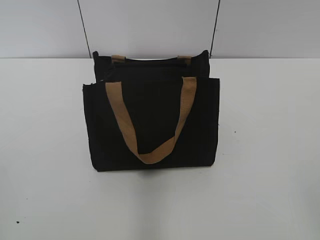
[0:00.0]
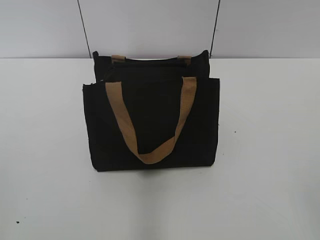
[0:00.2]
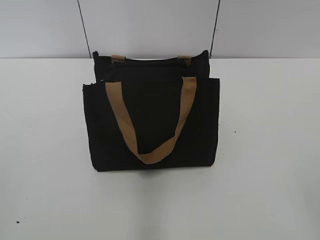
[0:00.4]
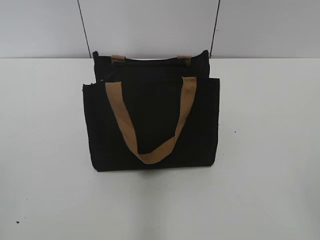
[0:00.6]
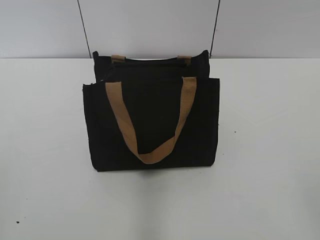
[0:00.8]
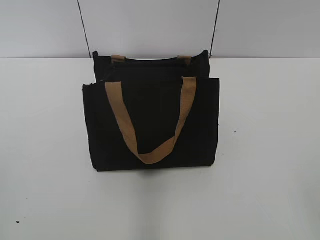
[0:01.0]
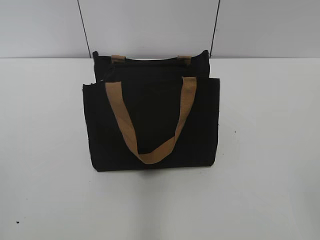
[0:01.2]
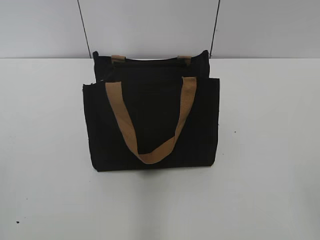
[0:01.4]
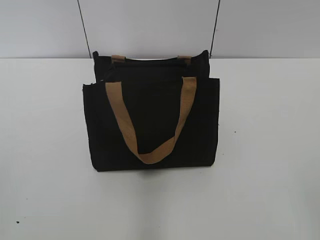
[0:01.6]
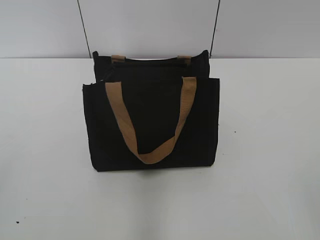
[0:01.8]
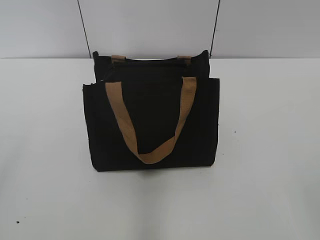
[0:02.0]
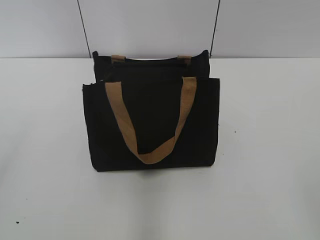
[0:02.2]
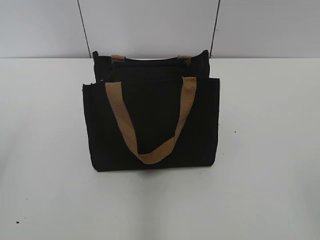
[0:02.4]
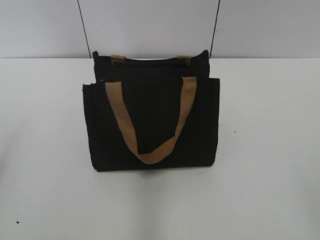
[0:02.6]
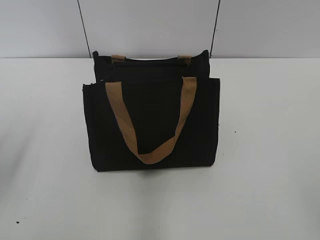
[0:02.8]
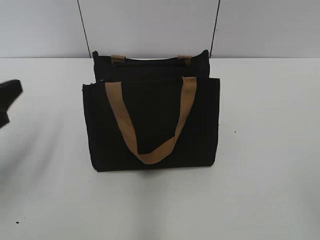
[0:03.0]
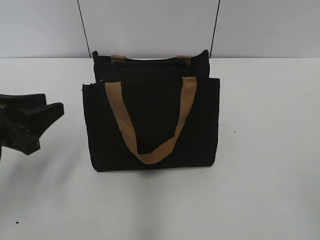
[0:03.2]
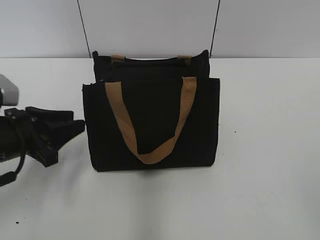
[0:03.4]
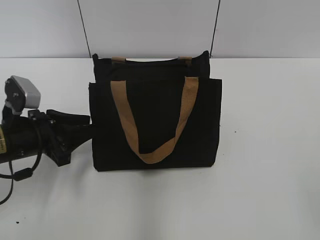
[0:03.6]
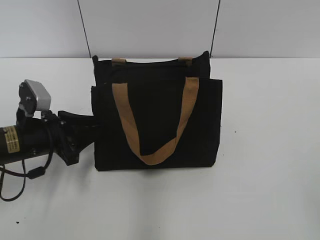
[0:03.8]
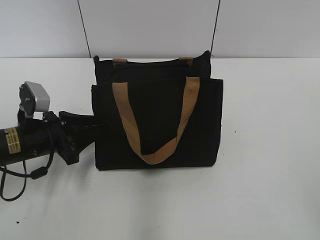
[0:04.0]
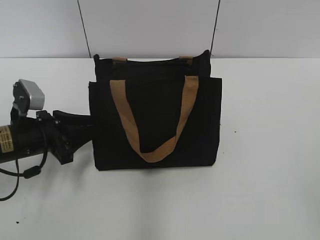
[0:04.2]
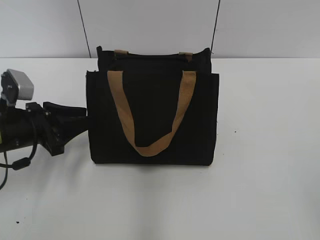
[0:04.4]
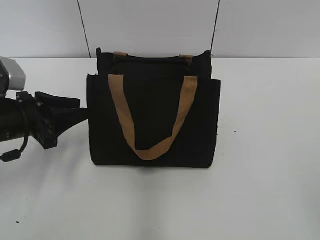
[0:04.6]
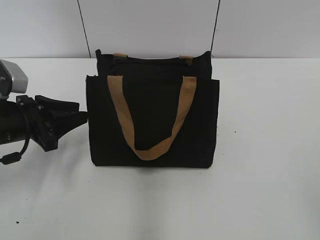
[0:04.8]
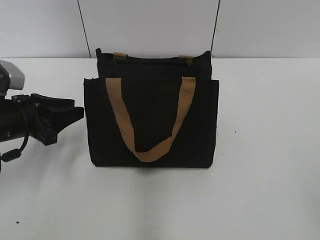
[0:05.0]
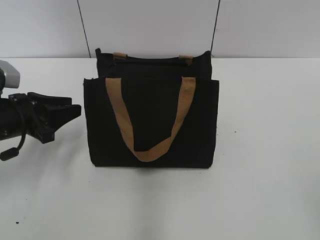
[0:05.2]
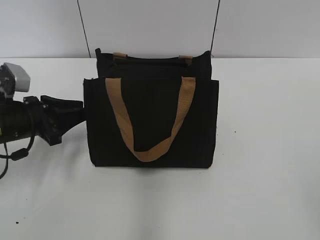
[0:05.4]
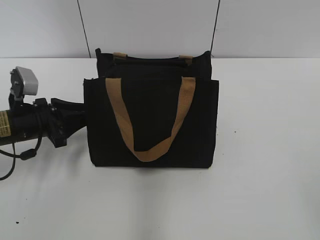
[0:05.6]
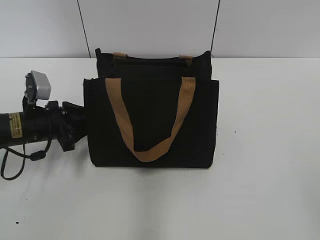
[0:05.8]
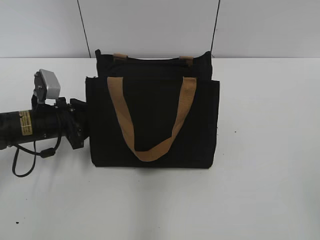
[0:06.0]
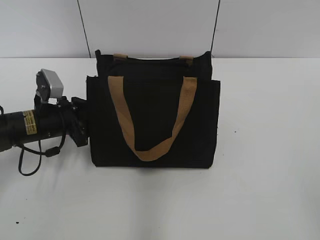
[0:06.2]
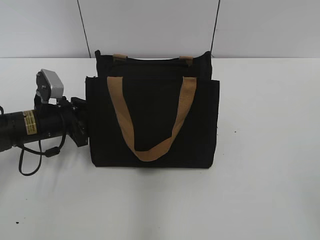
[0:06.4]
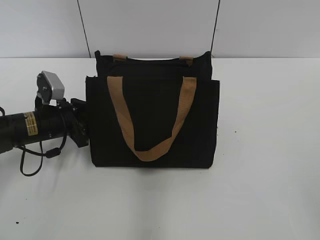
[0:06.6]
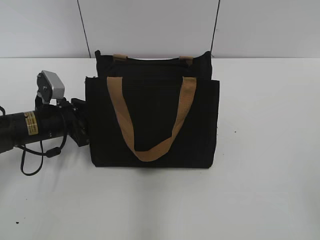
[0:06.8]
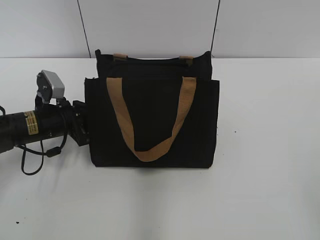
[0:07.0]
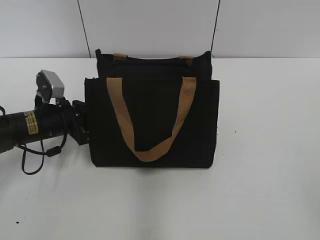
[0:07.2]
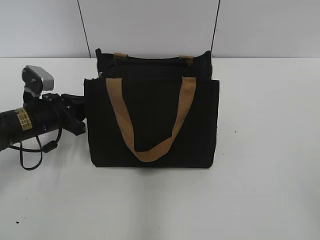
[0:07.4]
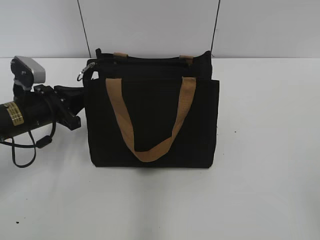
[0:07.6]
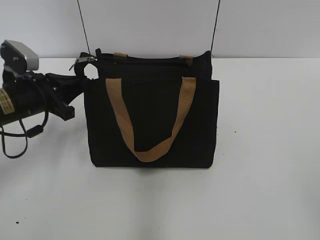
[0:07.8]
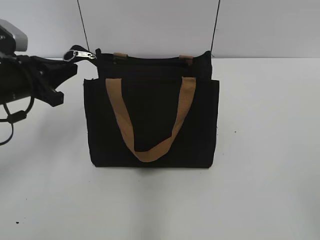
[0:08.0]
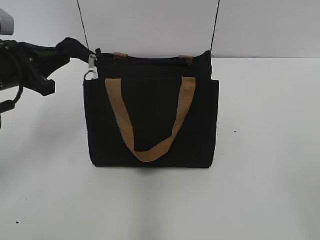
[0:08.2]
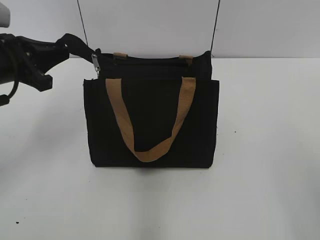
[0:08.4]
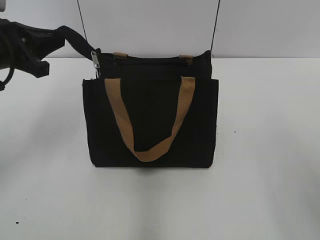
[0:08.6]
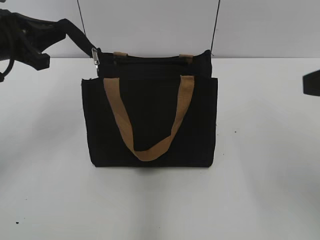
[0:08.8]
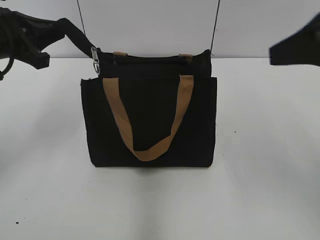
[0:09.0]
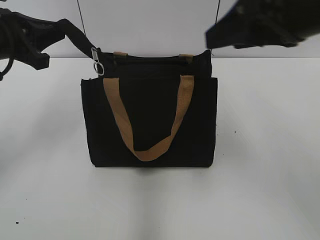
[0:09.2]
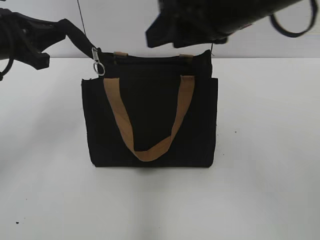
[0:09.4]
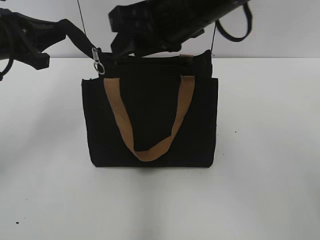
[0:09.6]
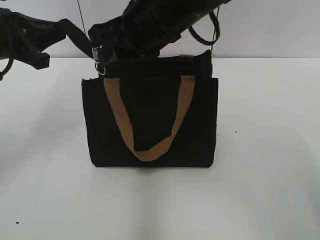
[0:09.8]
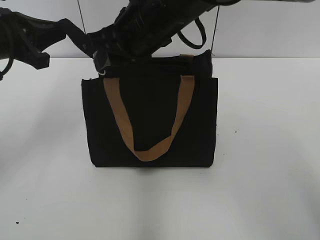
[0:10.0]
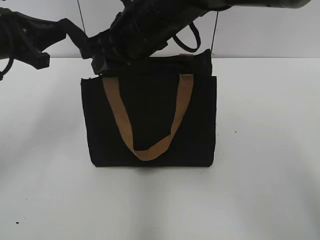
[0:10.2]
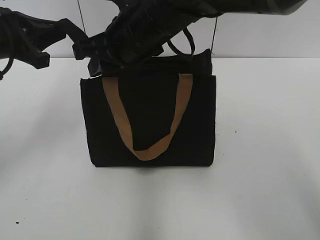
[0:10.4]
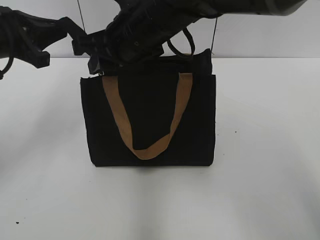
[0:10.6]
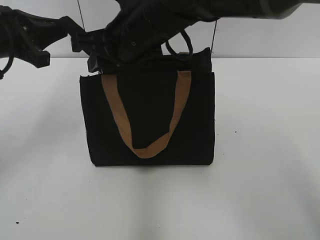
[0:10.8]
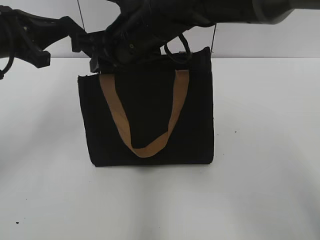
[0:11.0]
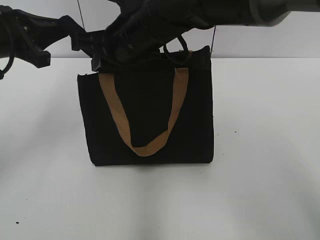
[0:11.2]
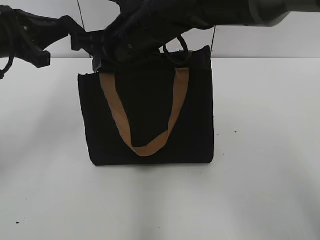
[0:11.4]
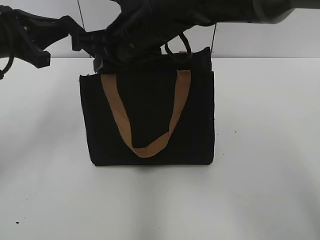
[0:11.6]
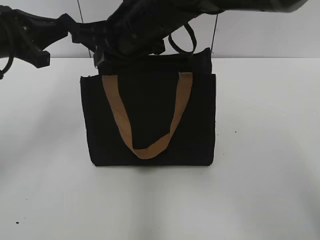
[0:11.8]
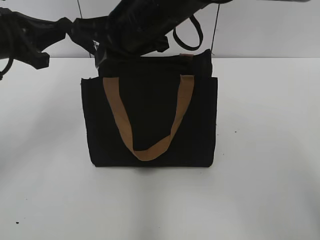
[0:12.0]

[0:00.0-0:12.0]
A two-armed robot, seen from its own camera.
1.6 to 3.0 s: The left gripper travels forward by roughly 20 cm.
3.0 to 4.4 s: The left gripper shifts roughly 10 cm downward and forward.
4.4 to 6.0 s: The left gripper shifts by about 5 cm.
6.0 to 7.6 s: The left gripper closes up.
7.6 to 9.0 s: The left gripper is displaced upward by some 15 cm. Meanwhile the right gripper is displaced forward by approximately 20 cm.
9.0 to 10.4 s: The right gripper shifts about 25 cm to the left and forward, and closes up.
10.4 to 12.0 s: The right gripper closes up.

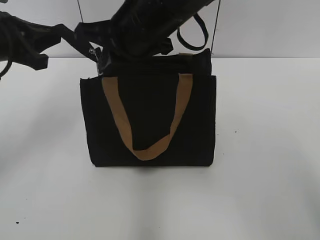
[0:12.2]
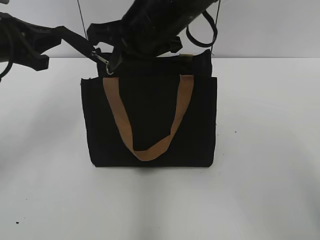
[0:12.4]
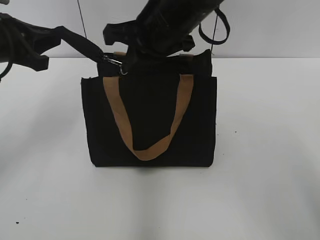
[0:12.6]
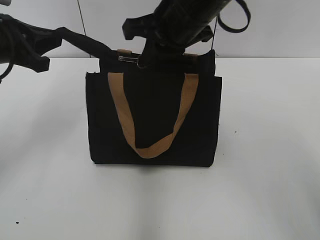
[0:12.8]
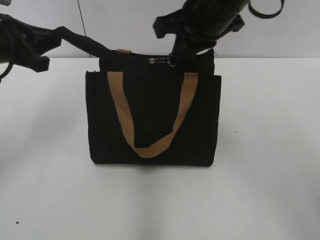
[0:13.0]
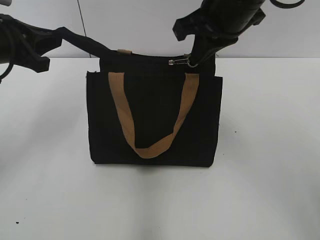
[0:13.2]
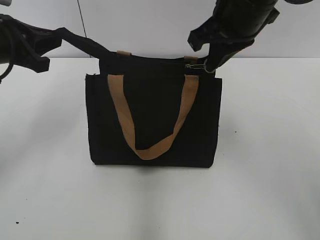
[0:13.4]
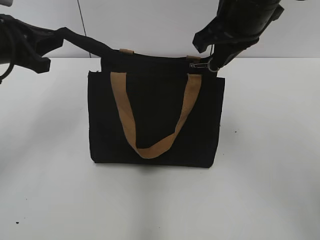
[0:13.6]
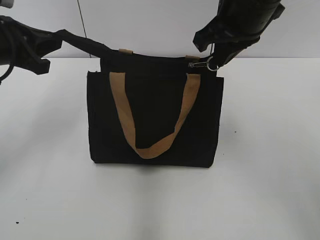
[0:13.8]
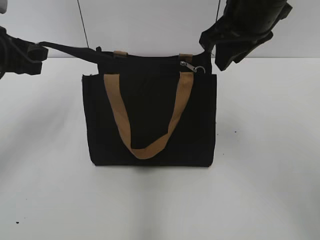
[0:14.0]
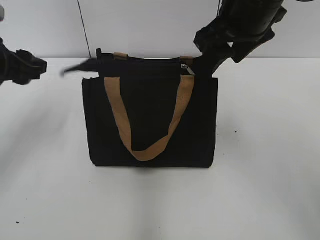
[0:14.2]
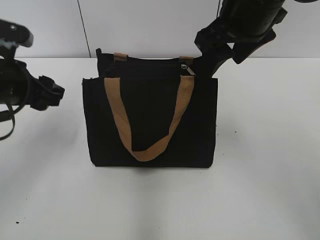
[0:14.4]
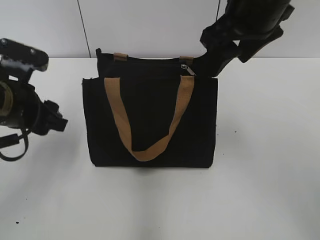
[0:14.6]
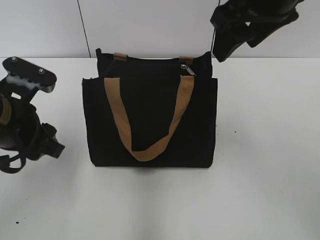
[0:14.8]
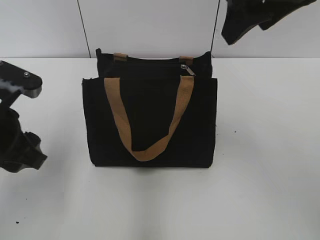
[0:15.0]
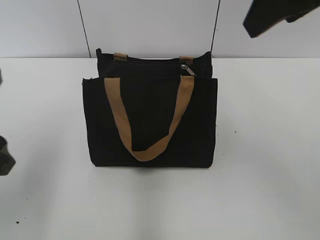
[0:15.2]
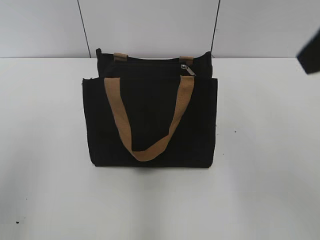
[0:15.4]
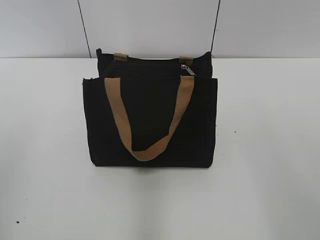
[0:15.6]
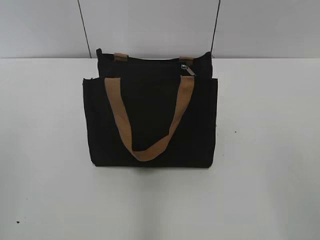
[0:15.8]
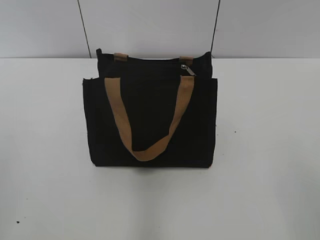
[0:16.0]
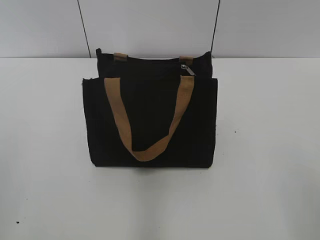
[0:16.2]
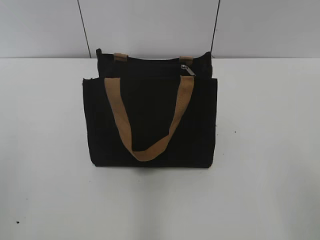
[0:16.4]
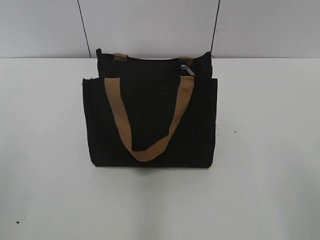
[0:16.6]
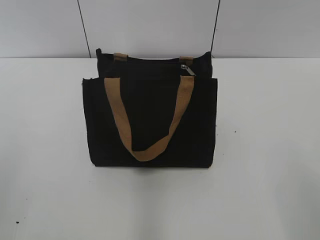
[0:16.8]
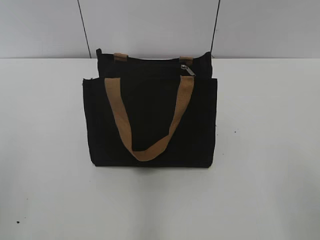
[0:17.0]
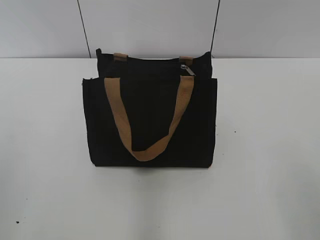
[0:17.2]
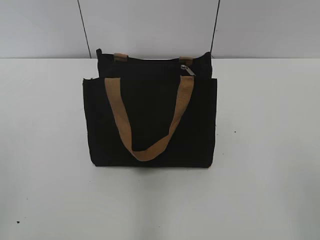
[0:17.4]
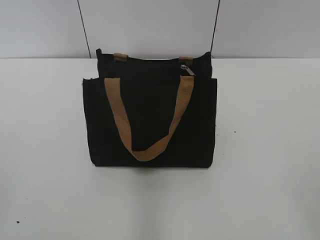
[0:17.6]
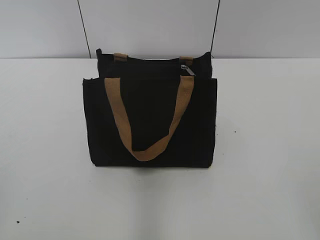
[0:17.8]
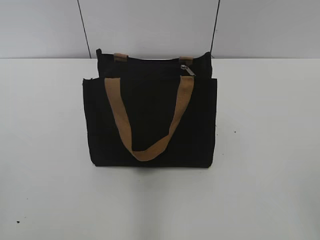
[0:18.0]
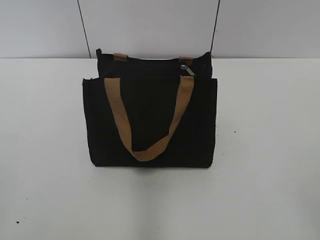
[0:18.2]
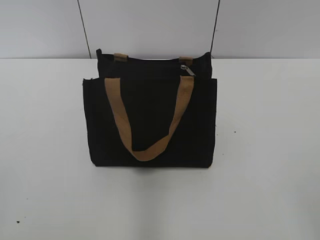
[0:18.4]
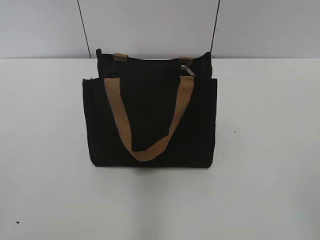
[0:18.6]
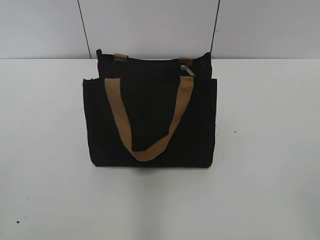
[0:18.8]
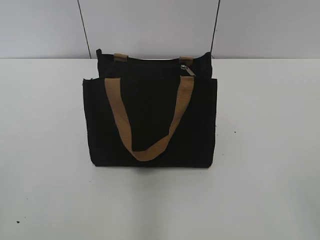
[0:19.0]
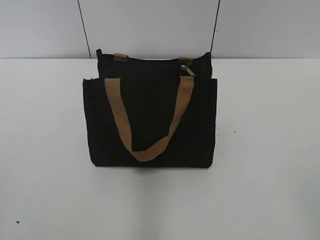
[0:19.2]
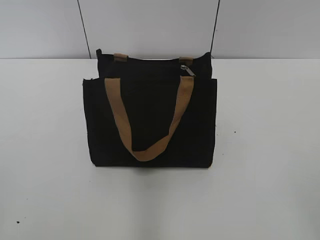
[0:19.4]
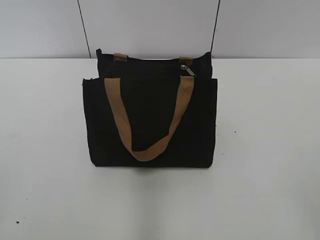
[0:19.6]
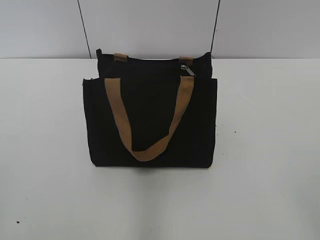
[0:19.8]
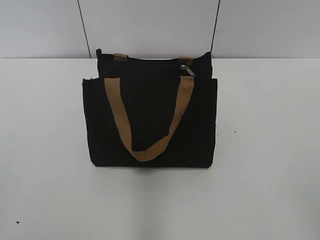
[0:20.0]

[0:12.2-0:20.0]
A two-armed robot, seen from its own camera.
Step, 14.0 to 14.2 s: Grab the zipper with your left hand.
12.2 to 13.8 s: The right gripper travels to the right by roughly 10 cm.
13.8 to 15.4 s: The left gripper travels backward by roughly 15 cm, and opens up. Meanwhile the right gripper travels backward, upward and to the right by roughly 20 cm, and opens up.
15.4 to 16.8 s: The right gripper heads backward, downward and to the right, covering some 20 cm.
18.4 to 20.0 s: The two grippers keep their place.

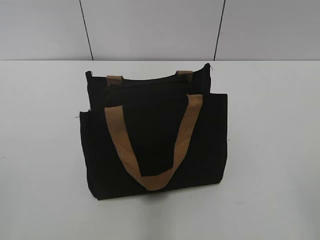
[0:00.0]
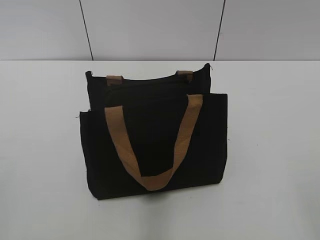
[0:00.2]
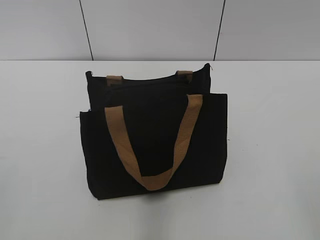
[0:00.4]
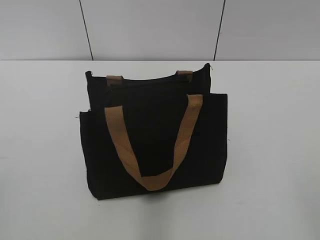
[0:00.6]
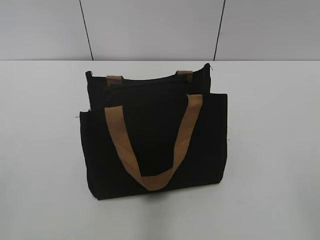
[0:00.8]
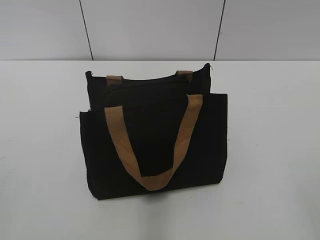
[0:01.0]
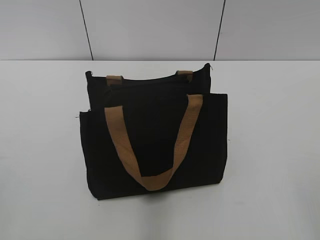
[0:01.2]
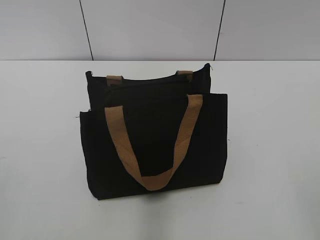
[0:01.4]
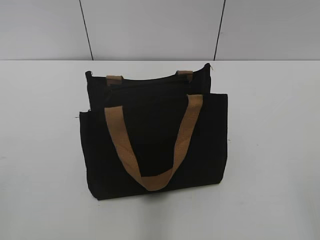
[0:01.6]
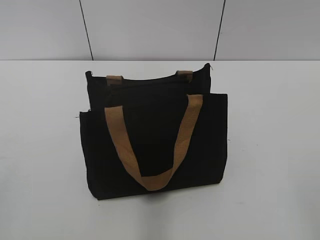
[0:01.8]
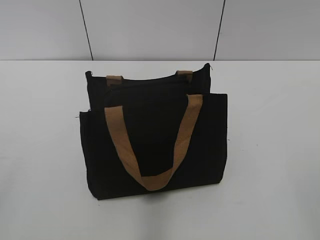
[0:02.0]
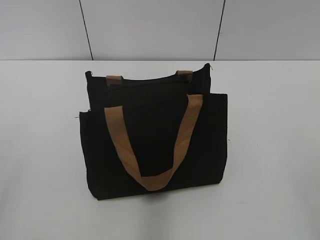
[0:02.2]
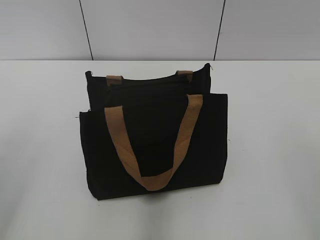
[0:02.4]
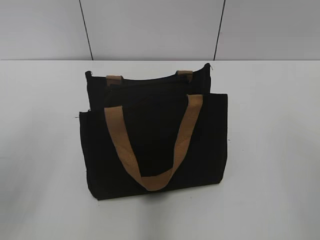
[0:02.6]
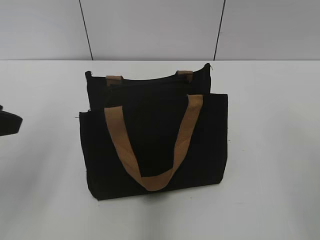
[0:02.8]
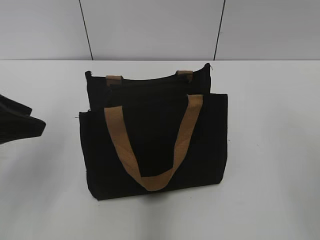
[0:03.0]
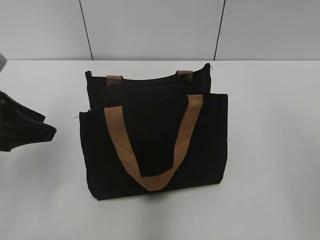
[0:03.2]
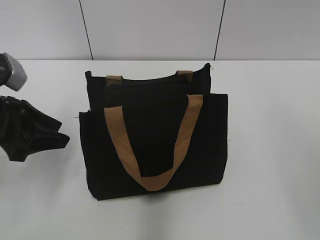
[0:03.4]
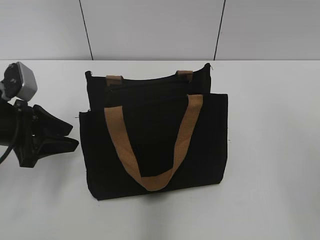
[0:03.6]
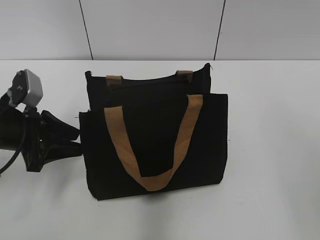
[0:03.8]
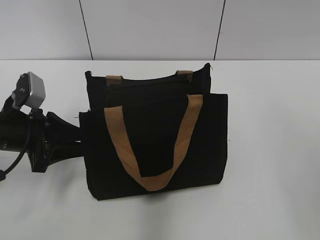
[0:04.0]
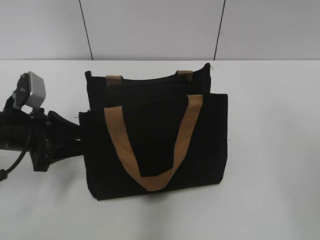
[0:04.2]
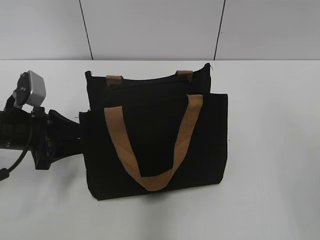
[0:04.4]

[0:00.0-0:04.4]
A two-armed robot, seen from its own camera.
1.4 to 3.0 s: The left gripper moves forward, approximately 20 cm, and opens up.
3.0 to 4.4 s: The left gripper goes about 15 cm downward and forward.
